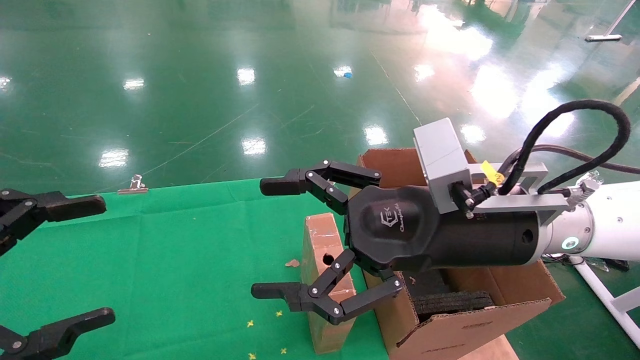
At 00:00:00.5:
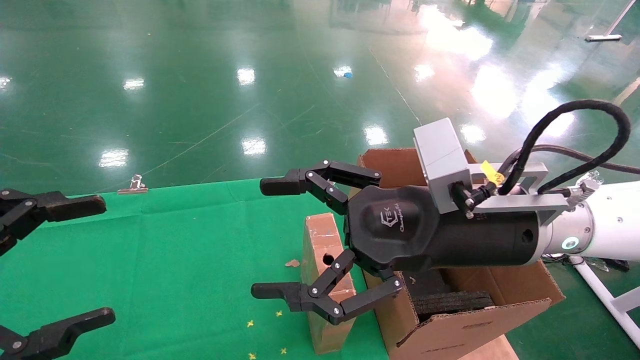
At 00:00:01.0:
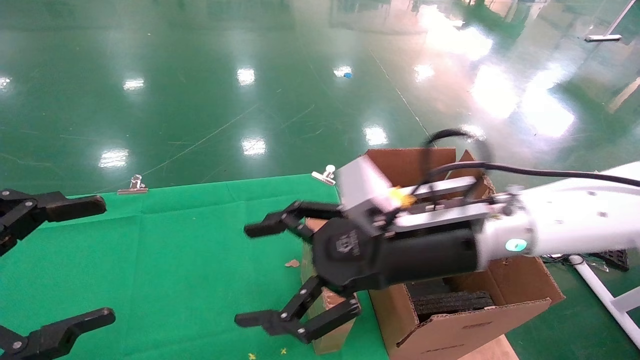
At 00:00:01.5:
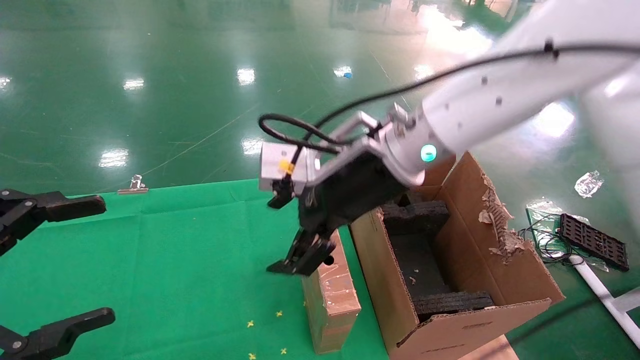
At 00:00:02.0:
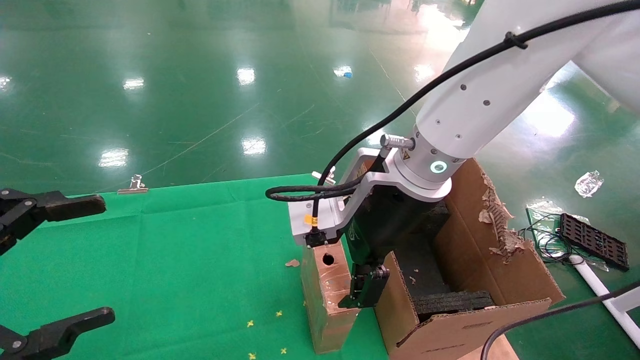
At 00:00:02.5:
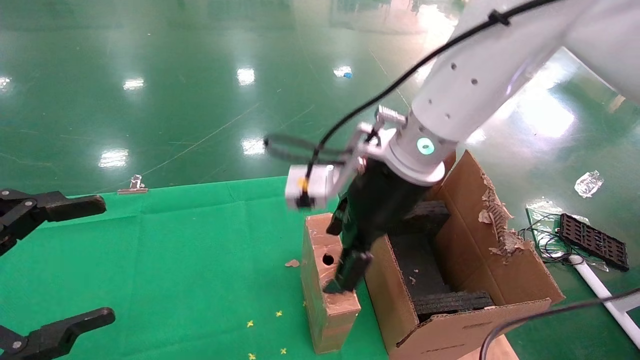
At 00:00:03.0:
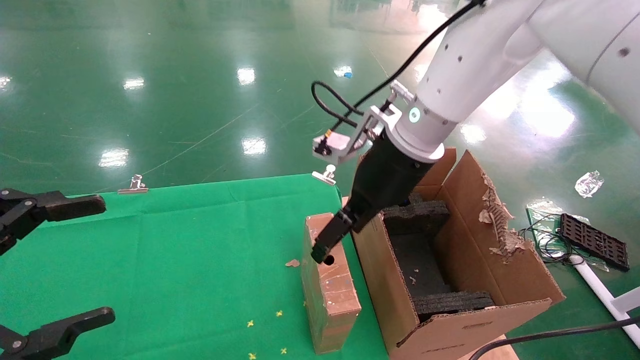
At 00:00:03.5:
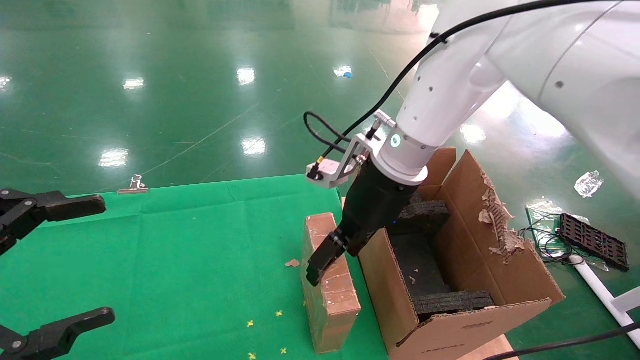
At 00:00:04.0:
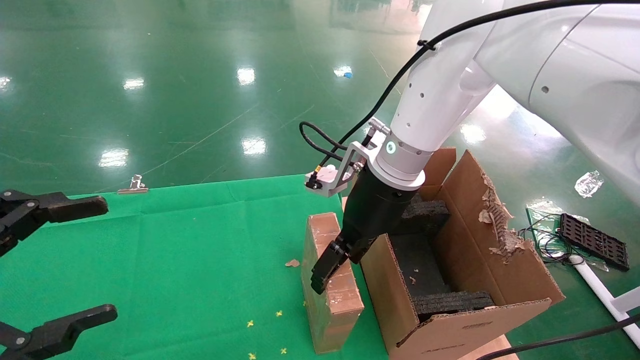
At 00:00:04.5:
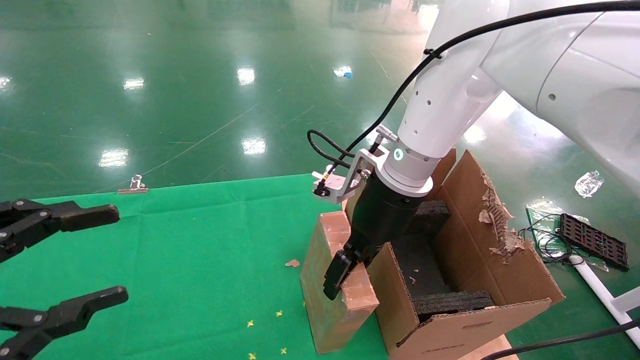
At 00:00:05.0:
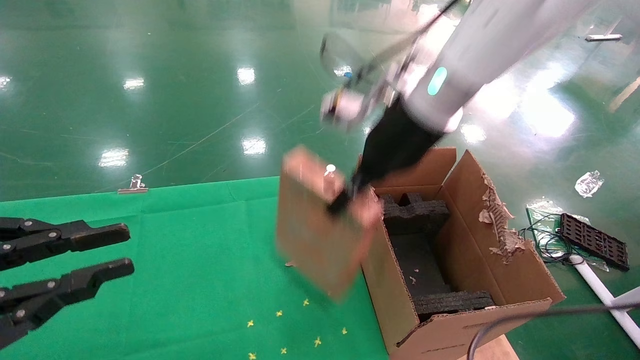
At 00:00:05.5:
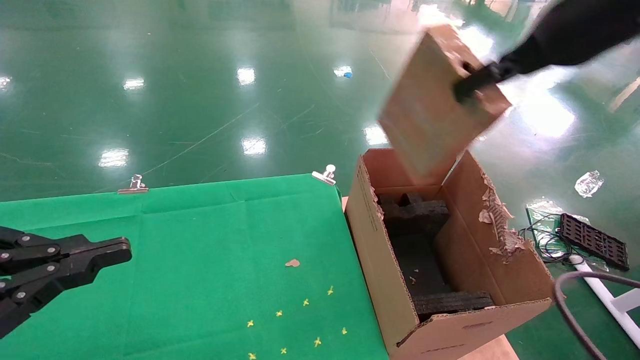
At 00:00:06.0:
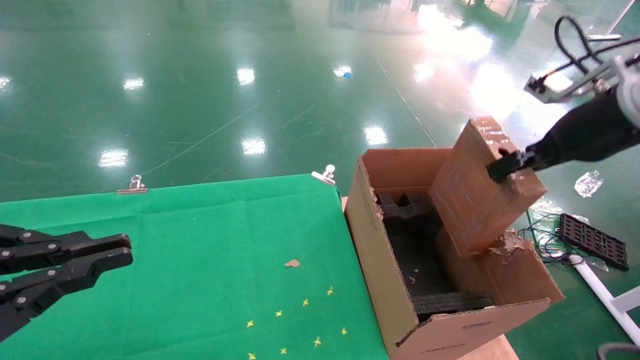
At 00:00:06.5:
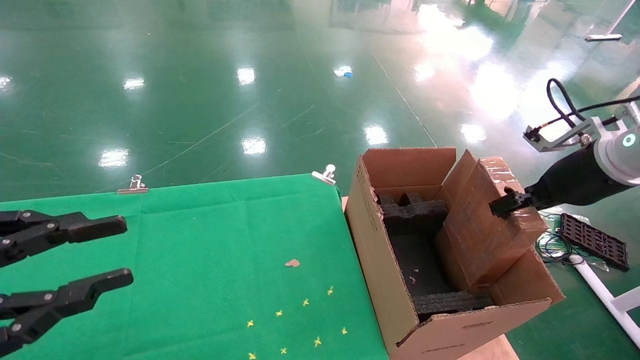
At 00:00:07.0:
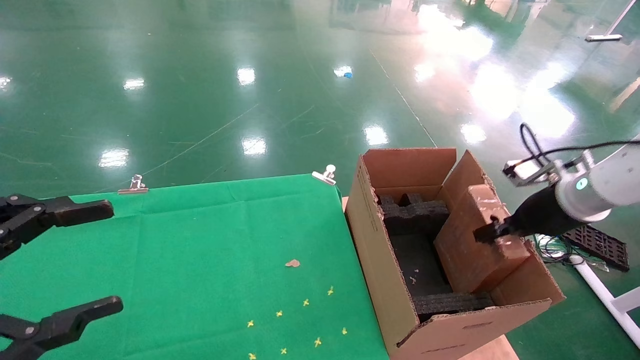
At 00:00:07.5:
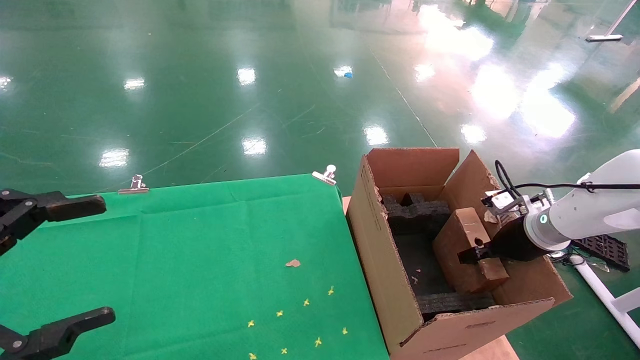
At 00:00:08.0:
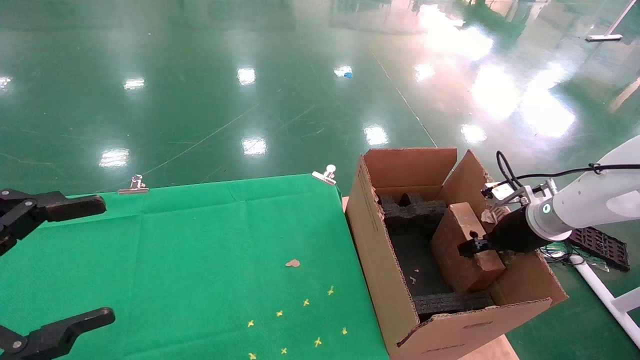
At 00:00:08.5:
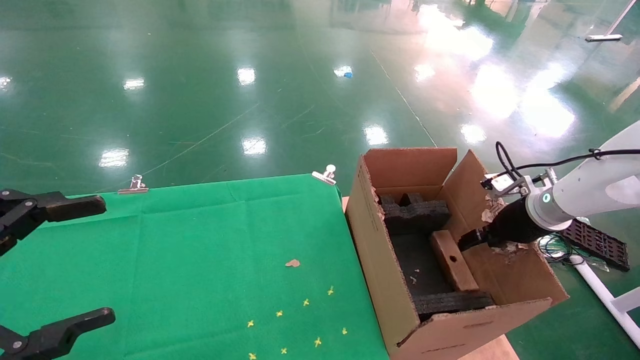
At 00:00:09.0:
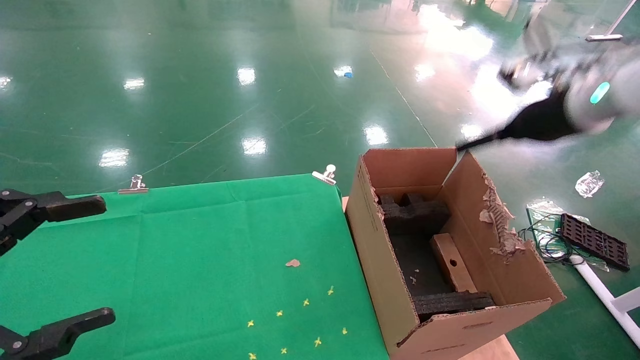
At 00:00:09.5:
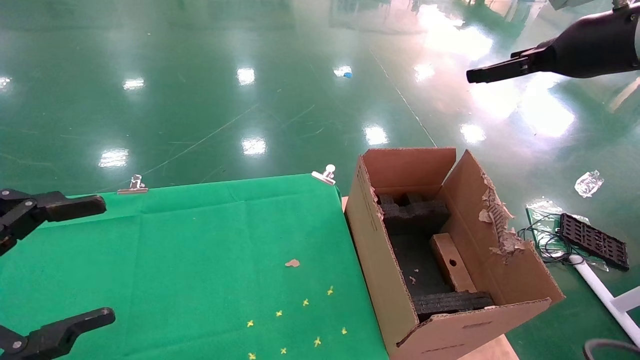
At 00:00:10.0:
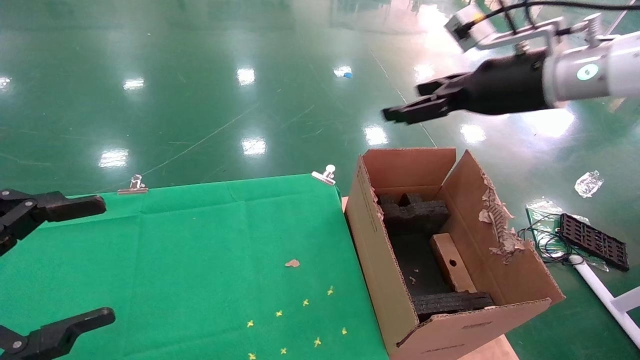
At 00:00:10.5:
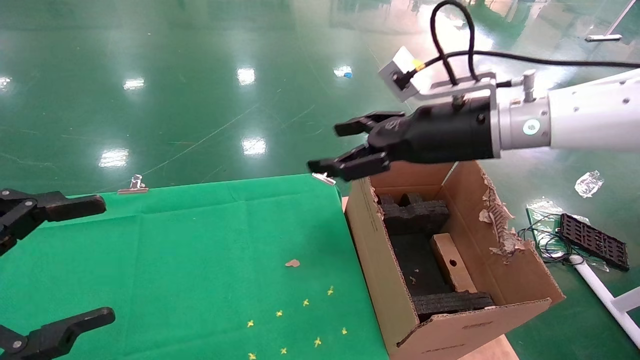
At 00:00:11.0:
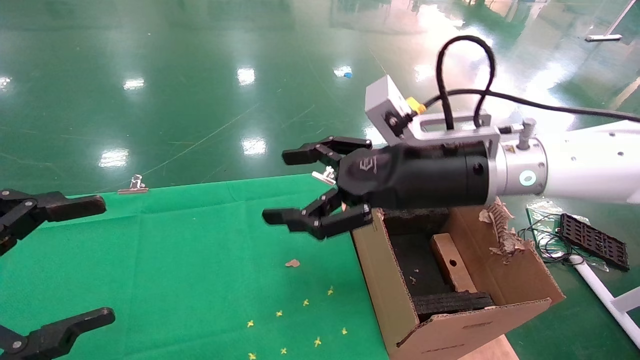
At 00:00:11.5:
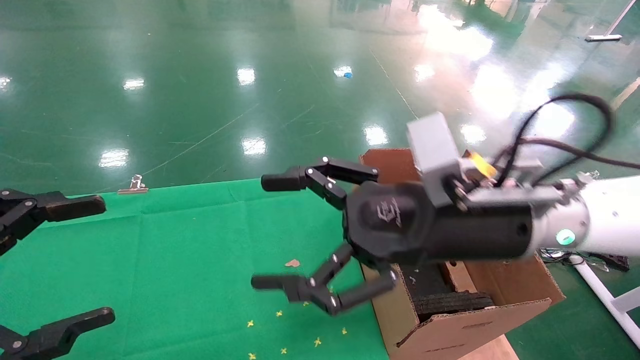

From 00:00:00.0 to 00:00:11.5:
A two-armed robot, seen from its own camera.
Task of the whole recording: using a robotic arm to pick up a cardboard box and palace it the carton.
Step, from 00:00:01.0 to 00:00:04.5: Pick up the mouse and the power cord paper box.
Step, from 00:00:05.0 to 00:00:08.5: Place the mouse and the power cord paper box into the container.
From 00:00:00.0 to 00:00:02.0: The right gripper goes approximately 10 cm to the left and forward.
From 00:00:02.0 to 00:00:04.0: The right gripper goes roughly 5 cm forward.
From 00:00:04.0 to 00:00:06.0: The left gripper closes, while the right gripper heads to the right, covering some 25 cm, and closes up.
From 00:00:06.0 to 00:00:07.5: The right gripper travels downward by roughly 20 cm; the left gripper opens its fingers.
From 00:00:07.5 to 00:00:09.5: The right gripper travels upward by about 25 cm, and opens its fingers.
From 00:00:09.5 to 00:00:11.5: The right gripper travels to the left and downward by some 25 cm.

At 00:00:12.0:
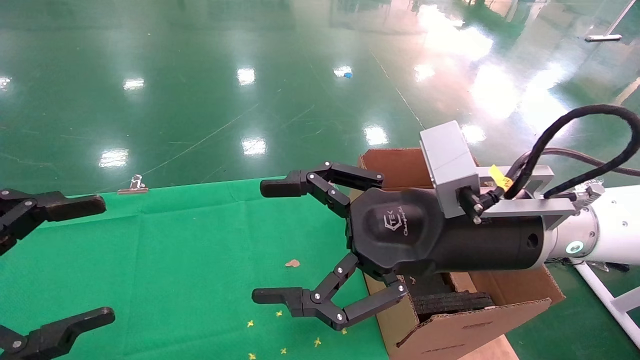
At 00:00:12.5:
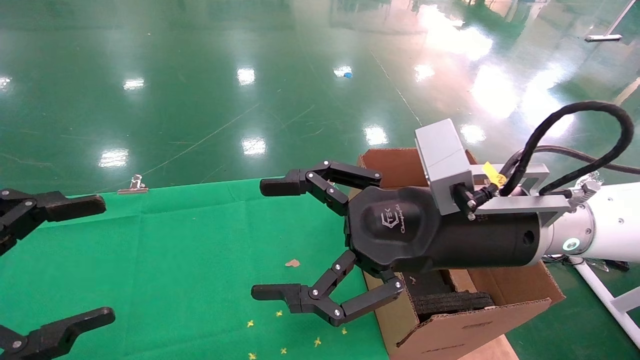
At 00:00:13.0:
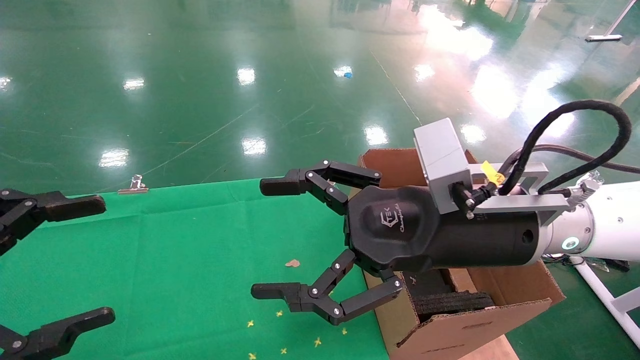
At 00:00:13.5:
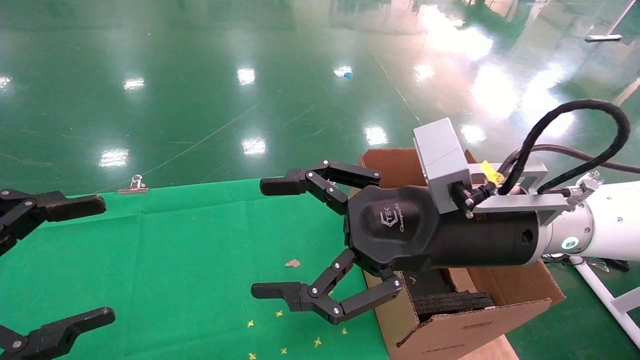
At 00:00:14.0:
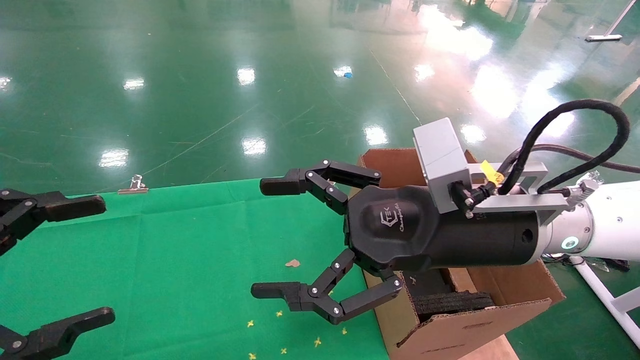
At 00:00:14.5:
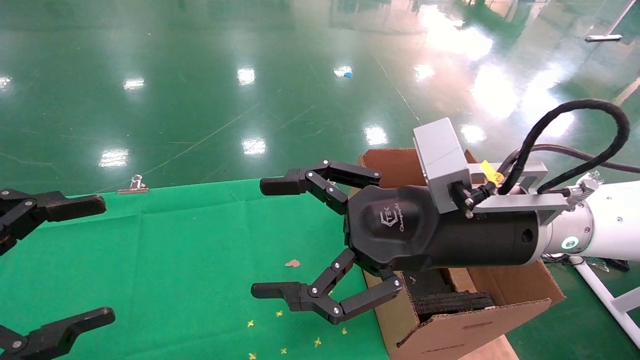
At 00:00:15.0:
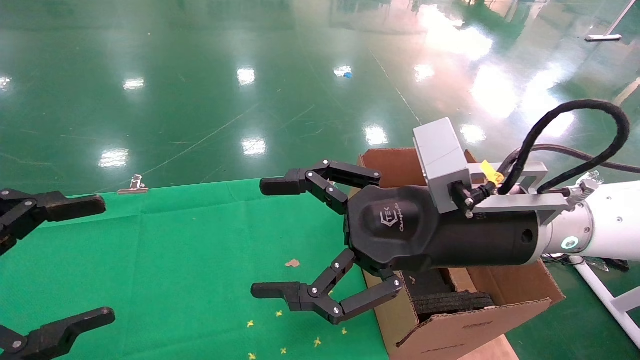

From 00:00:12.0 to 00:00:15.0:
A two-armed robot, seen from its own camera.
Task of the whole recording: using a robotic arm to pick up a cardboard box and palace it the carton.
From 00:00:12.0 to 00:00:15.0: The two grippers keep their place.
